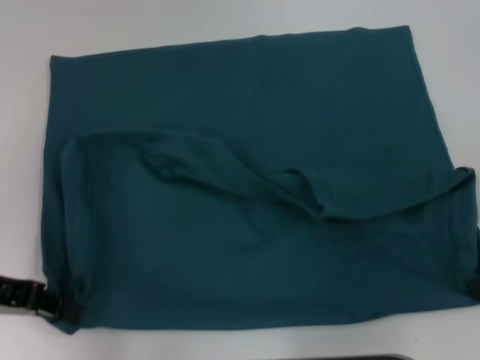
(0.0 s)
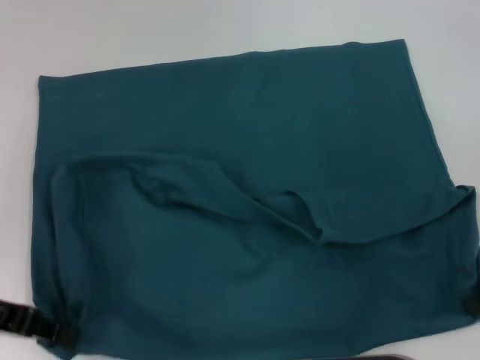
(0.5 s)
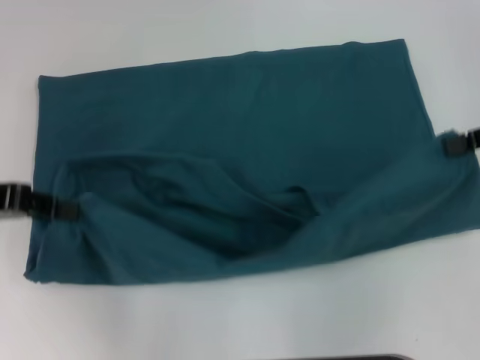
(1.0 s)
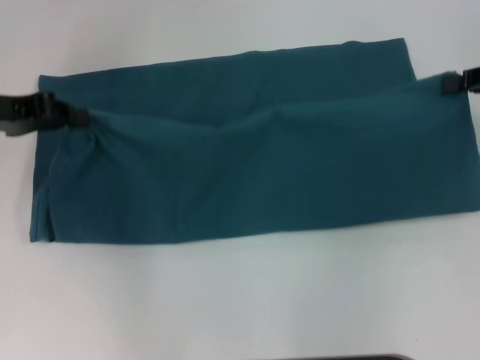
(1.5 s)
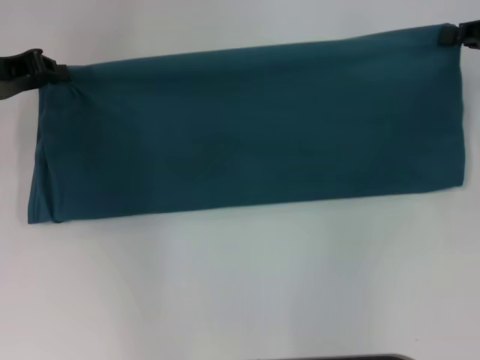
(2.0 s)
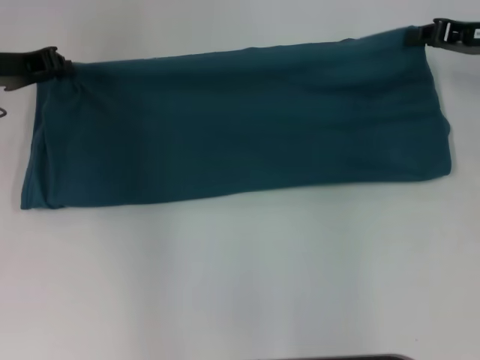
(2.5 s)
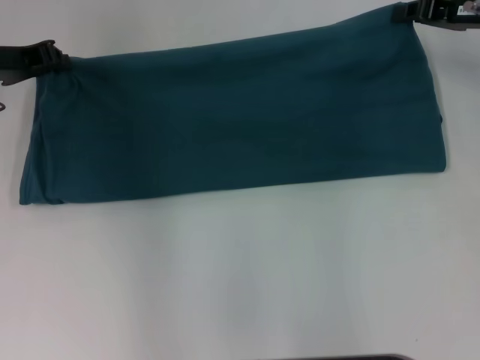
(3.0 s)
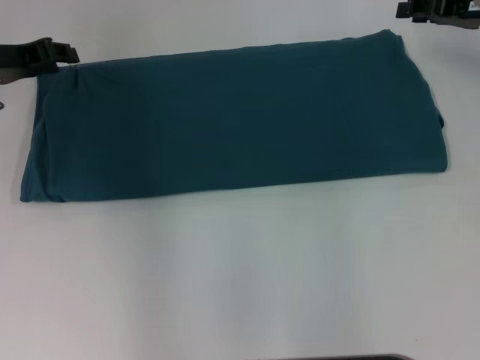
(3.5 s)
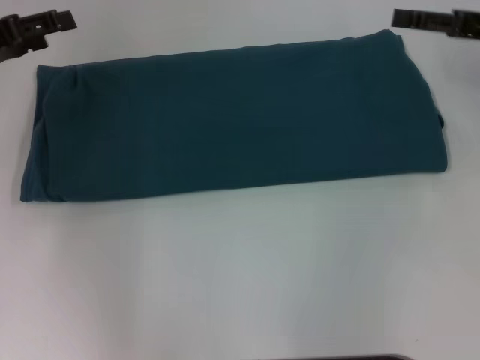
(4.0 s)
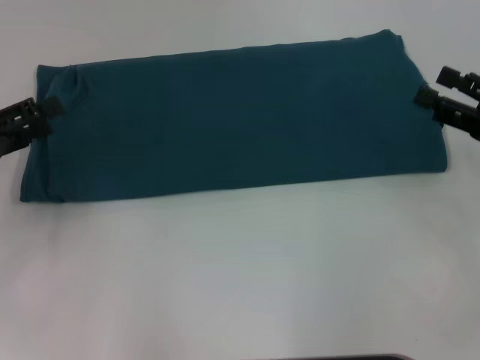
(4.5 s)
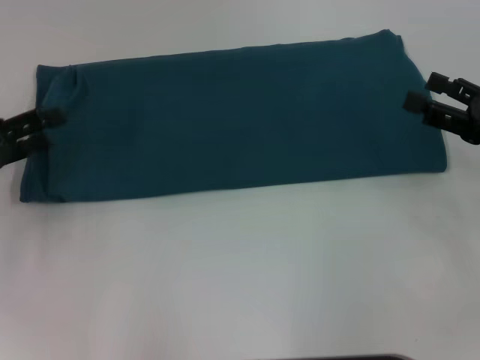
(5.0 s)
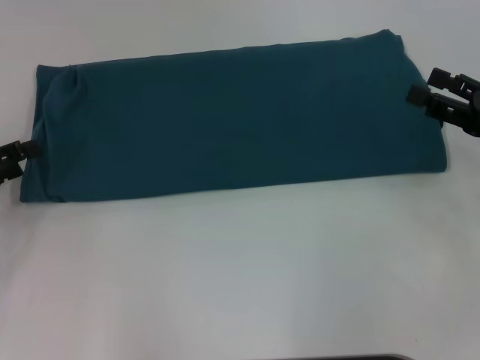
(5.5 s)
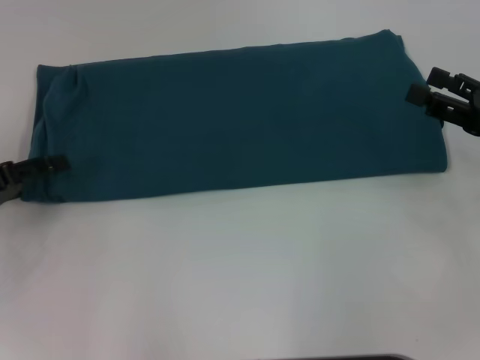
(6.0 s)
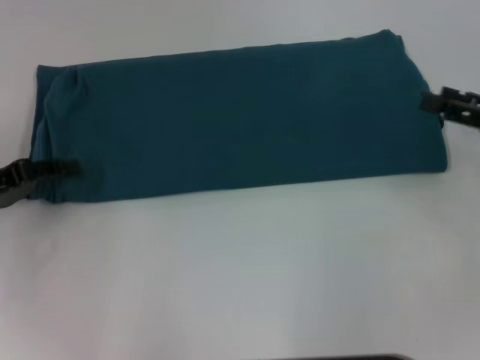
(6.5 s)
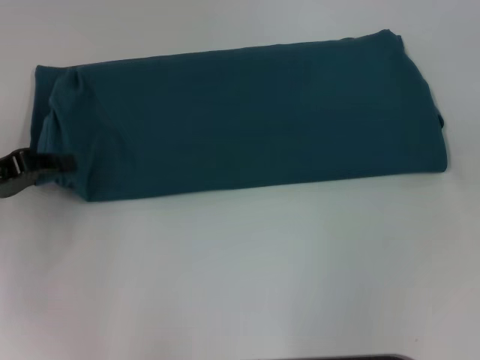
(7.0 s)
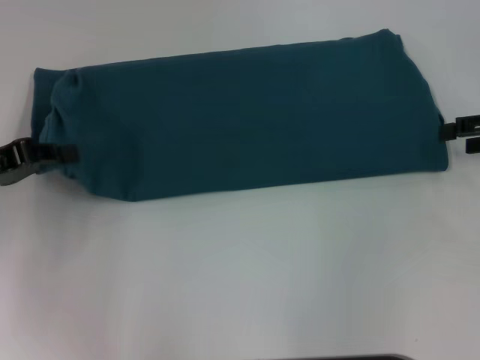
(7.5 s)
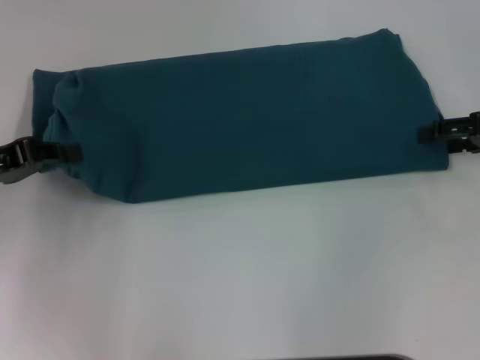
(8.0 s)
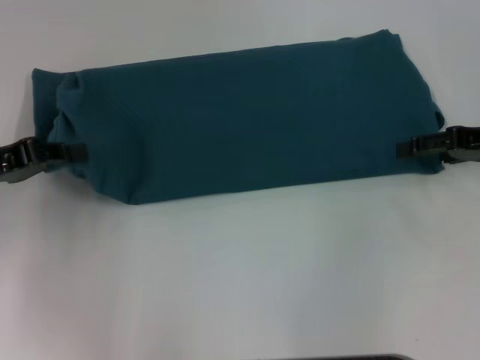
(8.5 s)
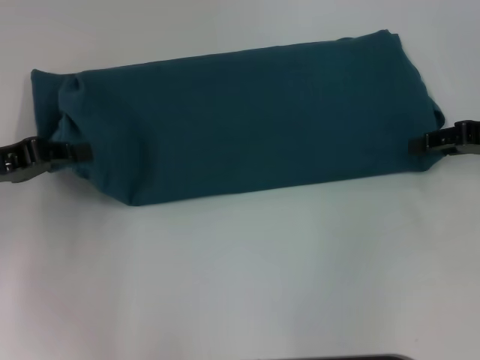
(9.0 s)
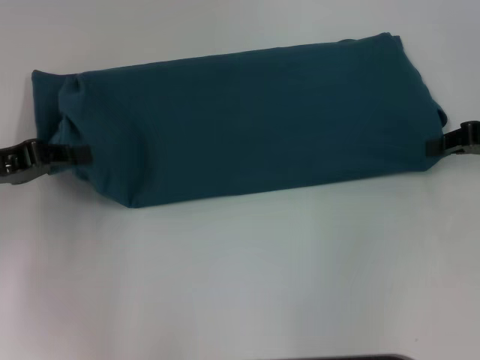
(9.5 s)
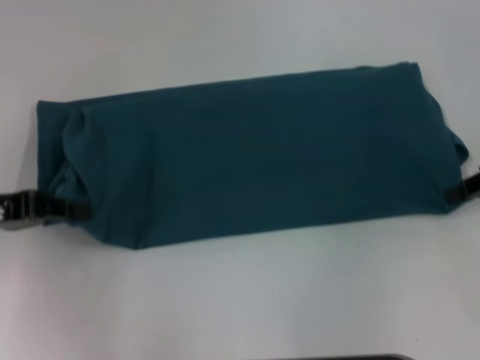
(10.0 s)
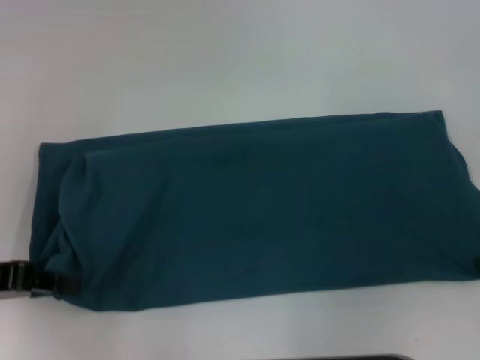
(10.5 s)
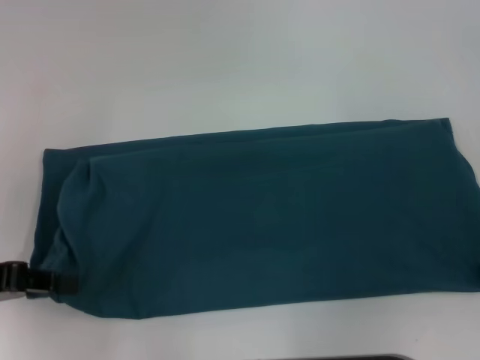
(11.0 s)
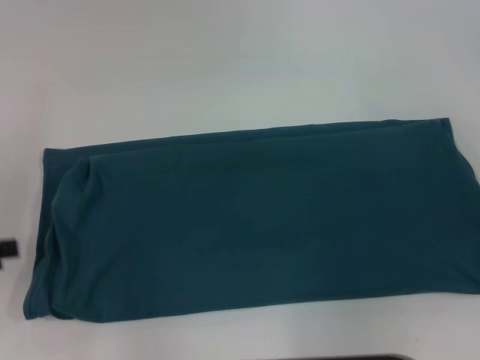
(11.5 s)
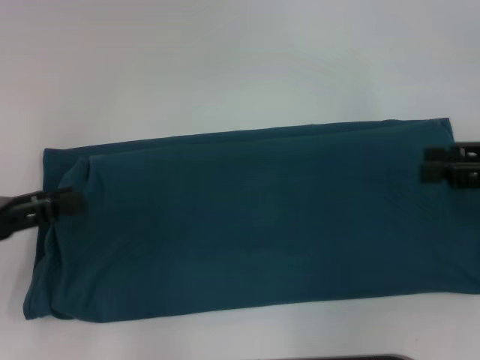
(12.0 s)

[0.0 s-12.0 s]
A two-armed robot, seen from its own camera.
Step, 1.0 to 4.0 s: Fold the clothes to the left.
Step, 1.0 to 4.0 s: Fold the clothes to the right.
Step, 4.5 to 11.0 s: Pull the clothes with your left hand.
Step, 4.5 to 11.0 s: Pull the clothes with your right hand.
0.0 to 2.0 s: The grippers both shift forward by some 10 cm.
2.0 to 4.0 s: The left gripper opens up; the right gripper opens up.
4.0 to 6.0 s: The left gripper goes about 10 cm downward and backward. The right gripper moves backward and downward, some 10 cm.
6.0 to 8.0 s: The right gripper shifts some 5 cm forward, and reaches approximately 10 cm to the right, then returns. The left gripper ends up about 5 cm from where it was, and closes.
8.0 to 10.0 s: The right gripper closes its fingers.
10.0 to 12.0 s: The right gripper opens its fingers. The left gripper opens up.

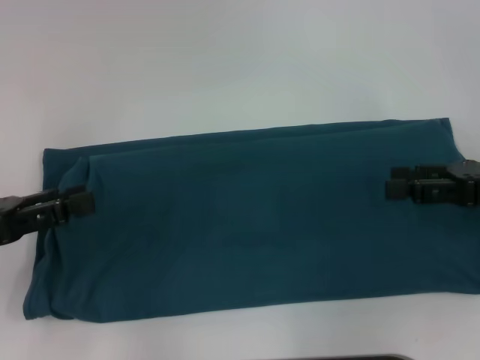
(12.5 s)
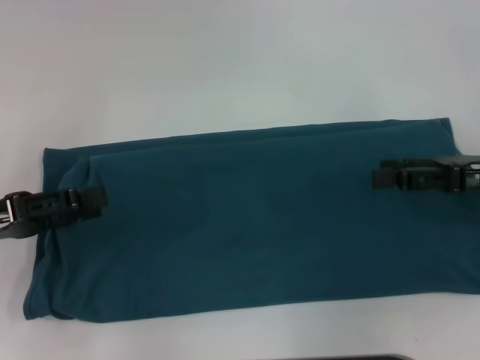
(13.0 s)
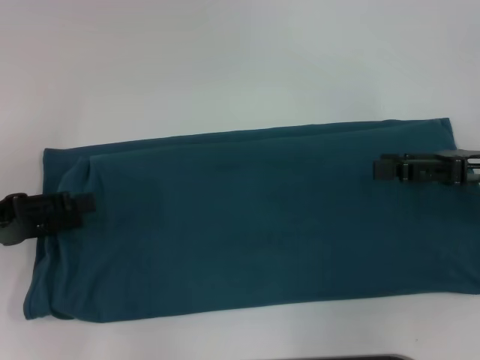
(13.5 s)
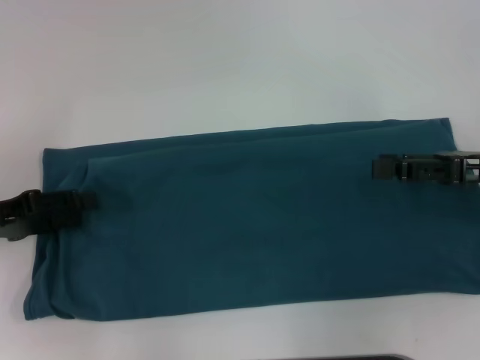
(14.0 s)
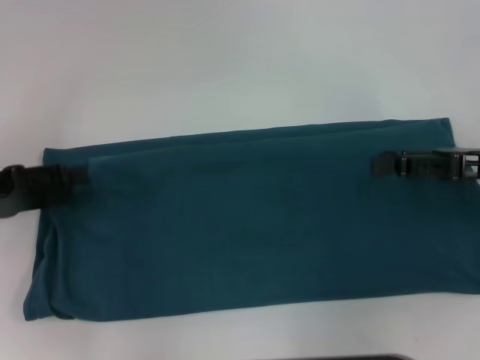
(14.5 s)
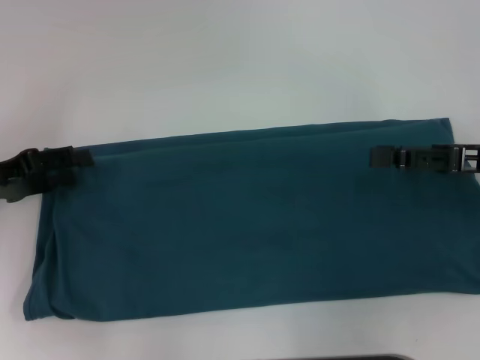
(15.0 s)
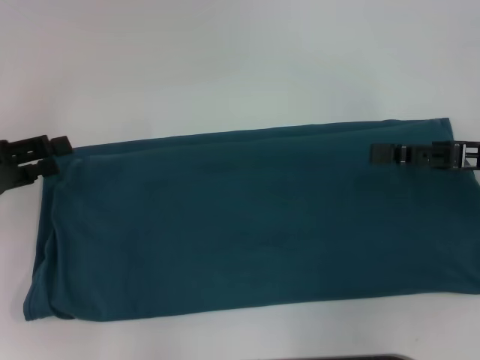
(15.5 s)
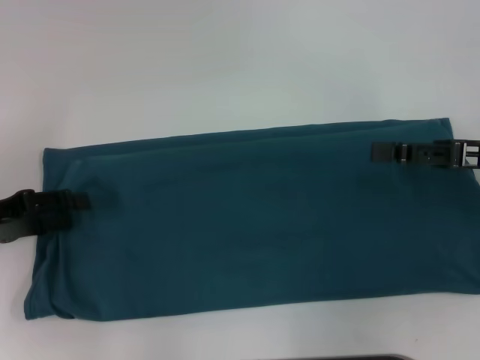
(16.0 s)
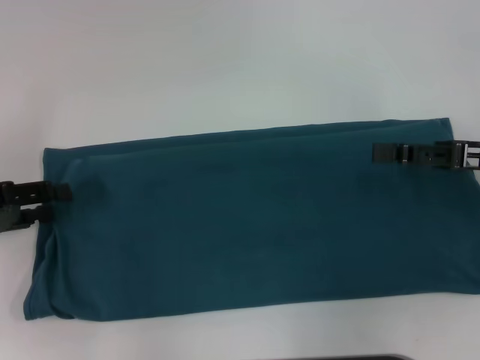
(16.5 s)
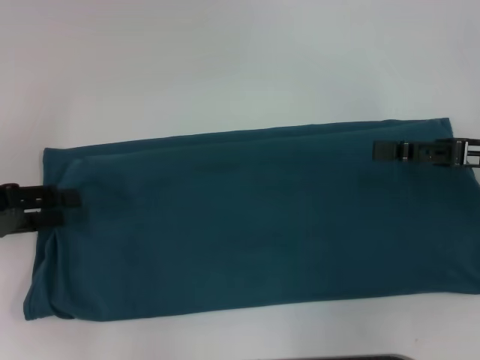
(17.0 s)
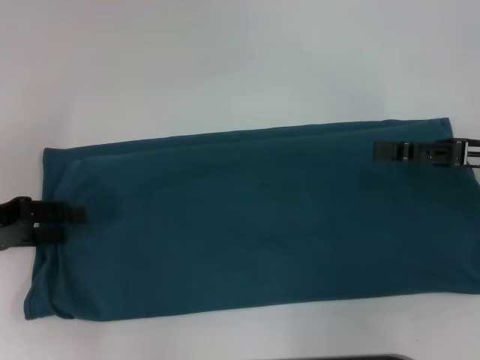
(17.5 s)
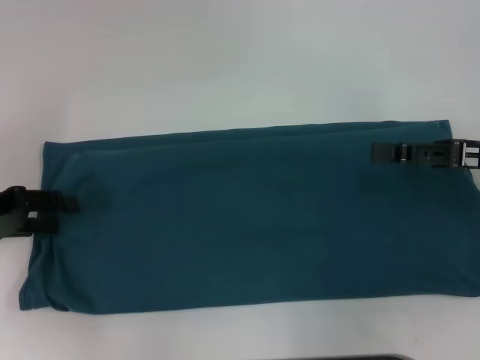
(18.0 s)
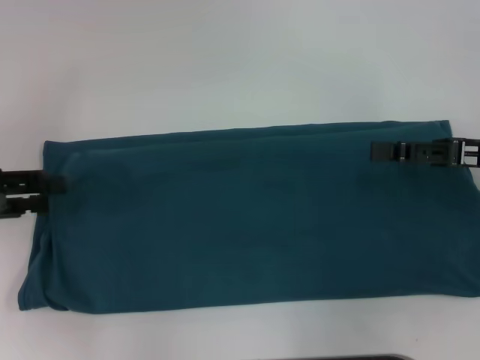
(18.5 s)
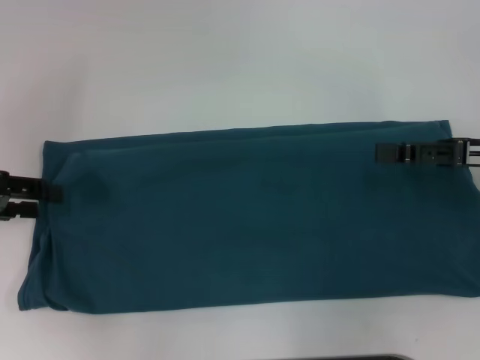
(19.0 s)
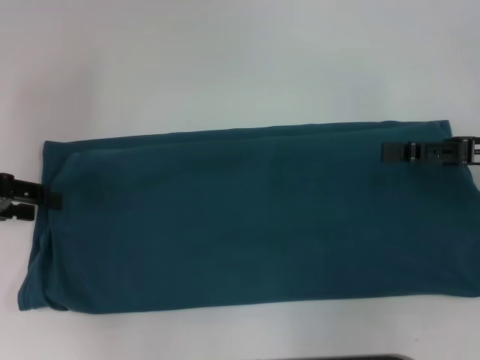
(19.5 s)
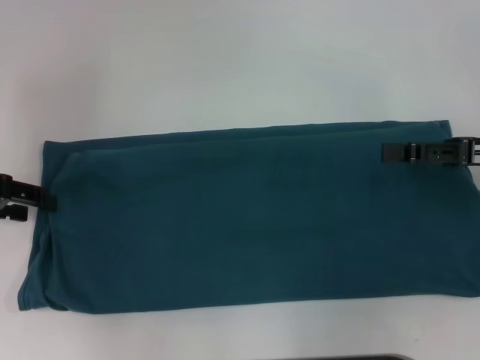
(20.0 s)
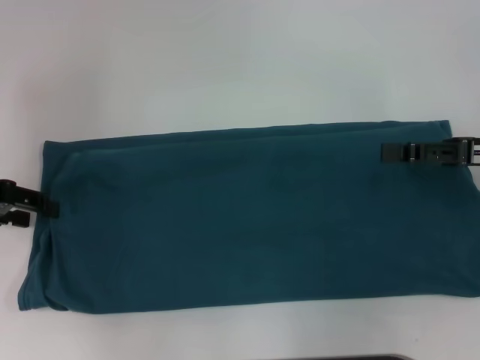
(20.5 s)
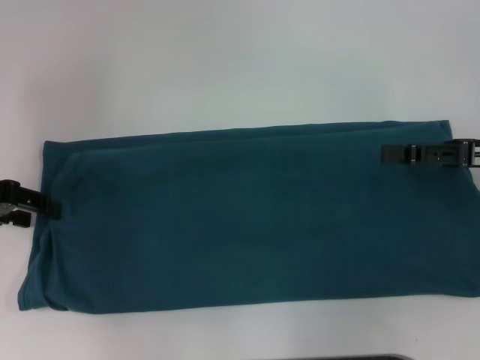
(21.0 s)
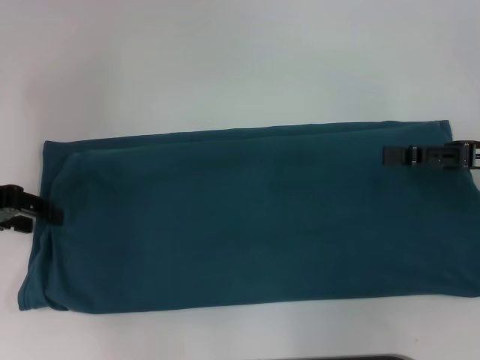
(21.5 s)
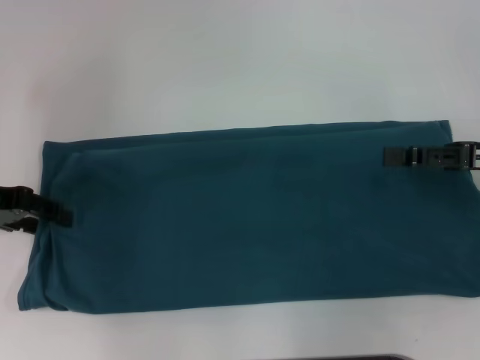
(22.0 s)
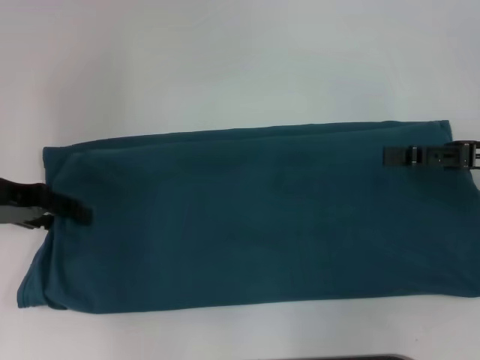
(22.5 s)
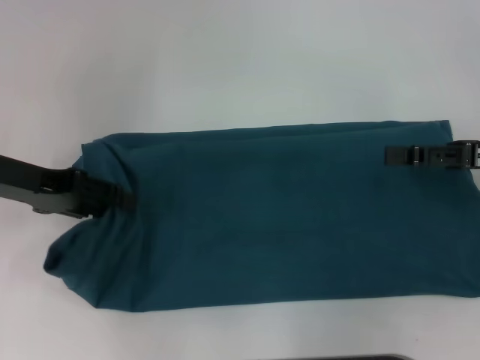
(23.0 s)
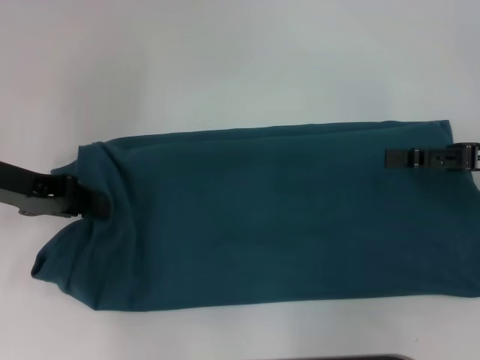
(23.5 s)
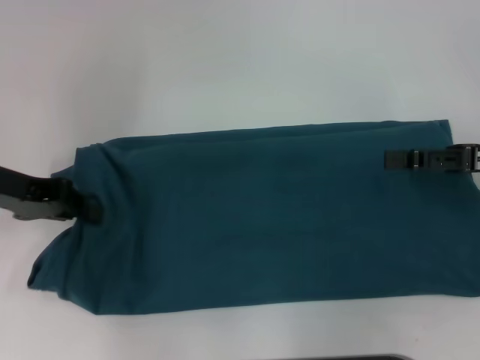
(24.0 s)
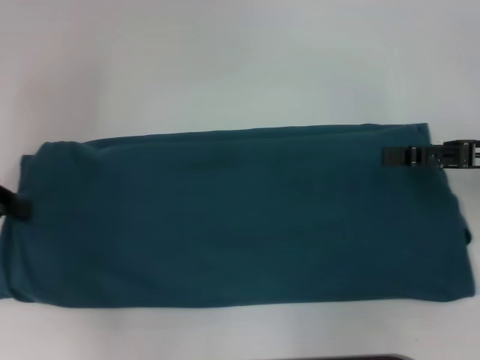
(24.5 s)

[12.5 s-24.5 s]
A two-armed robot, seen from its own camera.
14.5 to 18.5 s: The grippers make only small movements.
20.5 to 22.5 s: There are only small adjustments of the grippers.
22.5 to 24.5 s: The left gripper shifts by about 5 cm, and closes up.

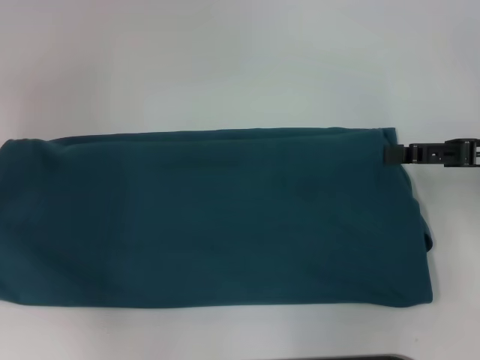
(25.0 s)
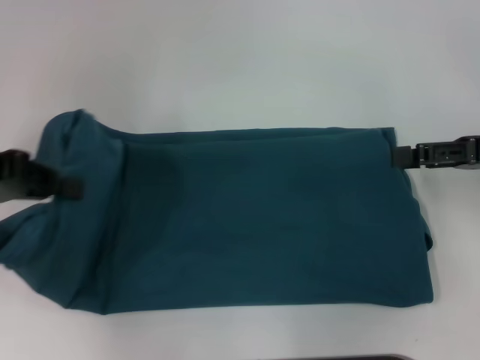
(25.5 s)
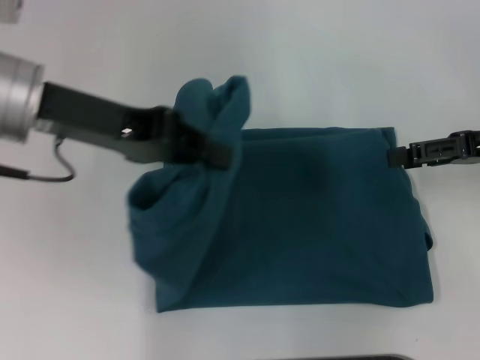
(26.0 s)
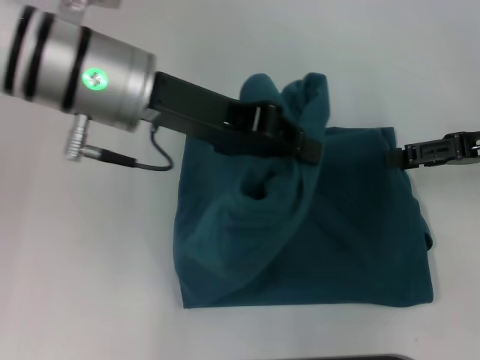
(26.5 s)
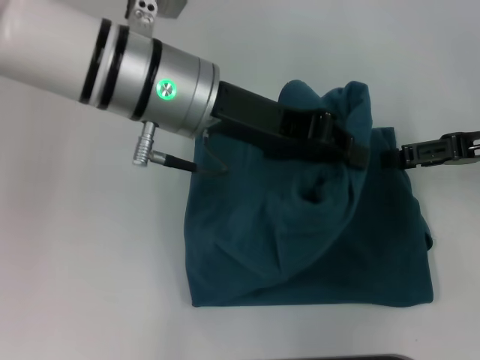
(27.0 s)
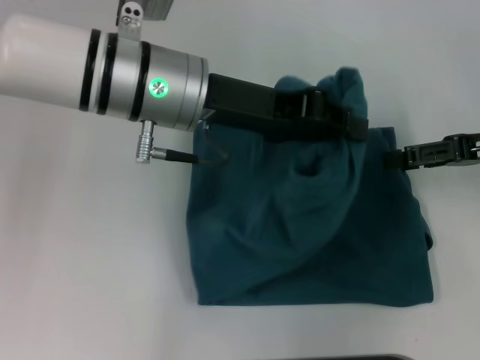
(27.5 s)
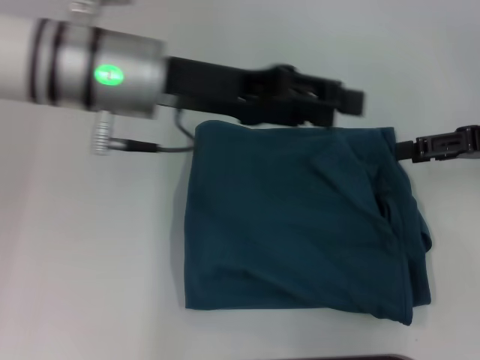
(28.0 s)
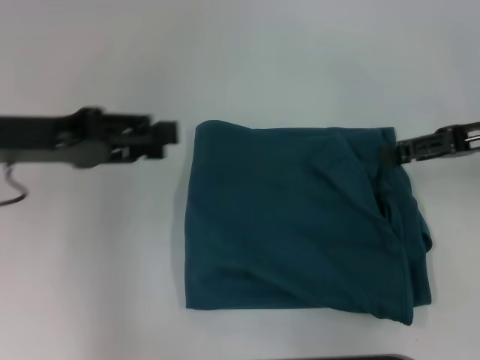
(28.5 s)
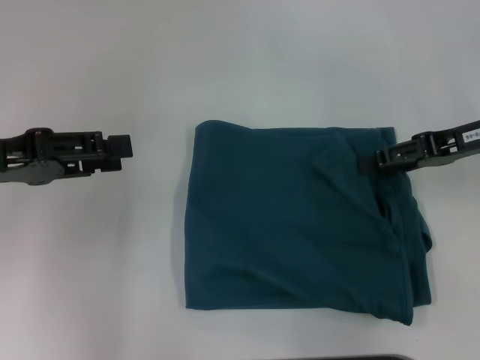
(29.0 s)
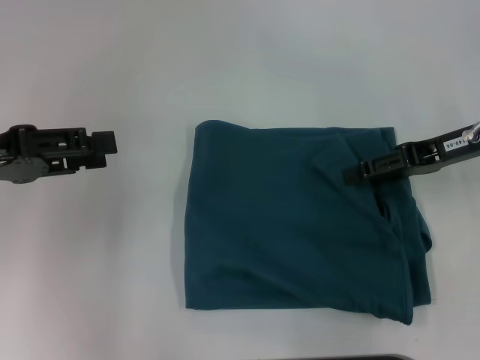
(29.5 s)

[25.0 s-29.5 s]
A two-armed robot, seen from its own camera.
Step, 25.0 to 28.5 s: Fold the clothes to the left.
25.0 to 27.0 s: The left gripper heads to the right, covering about 30 cm.
27.0 to 29.5 s: The left gripper heads to the left, covering some 20 cm, and opens up.
